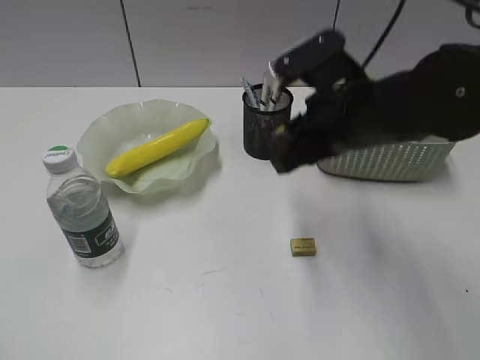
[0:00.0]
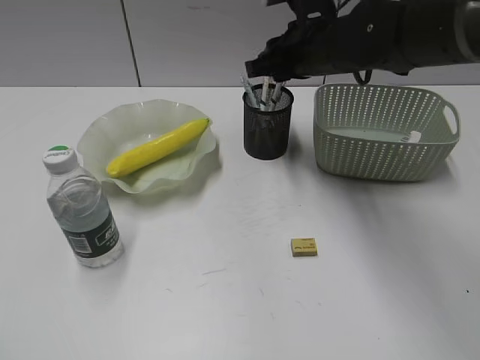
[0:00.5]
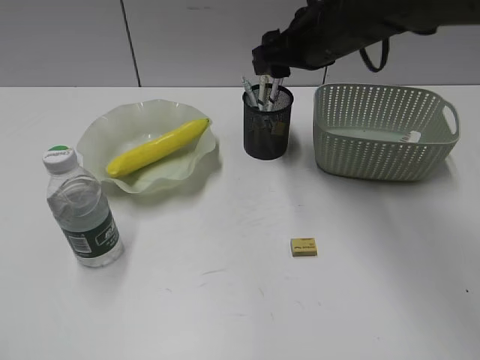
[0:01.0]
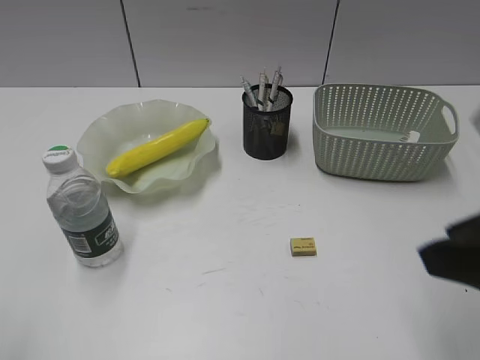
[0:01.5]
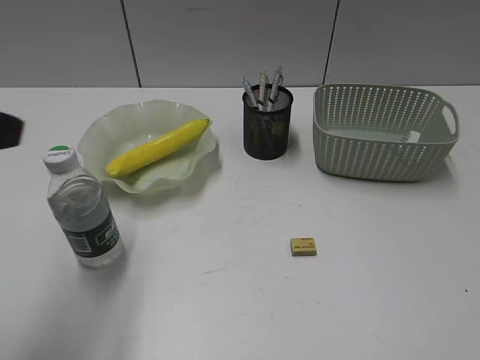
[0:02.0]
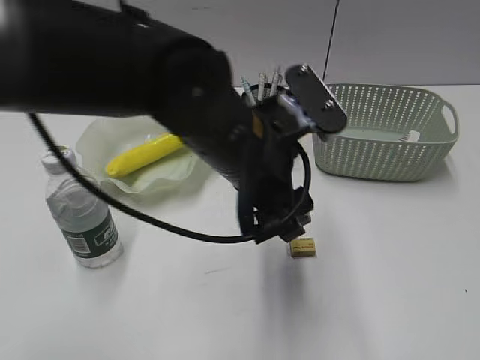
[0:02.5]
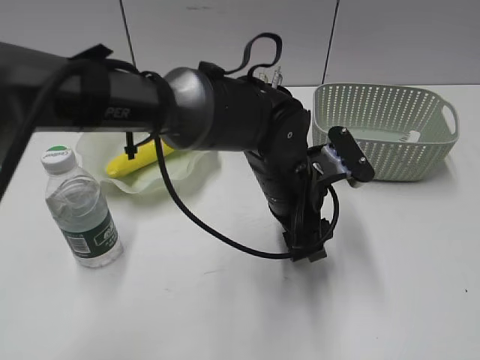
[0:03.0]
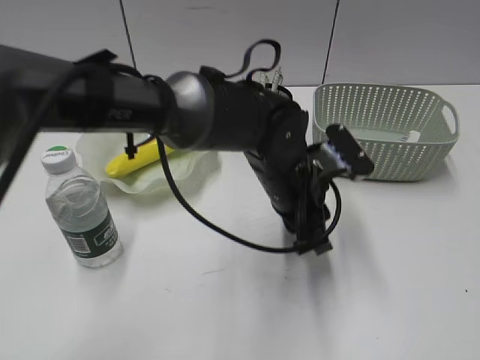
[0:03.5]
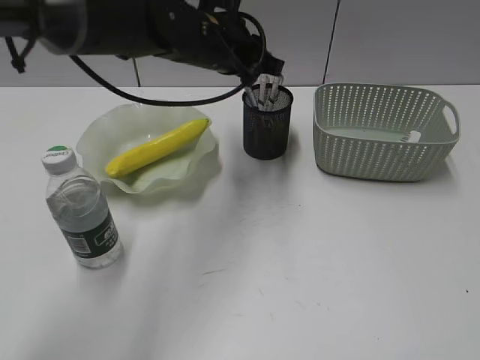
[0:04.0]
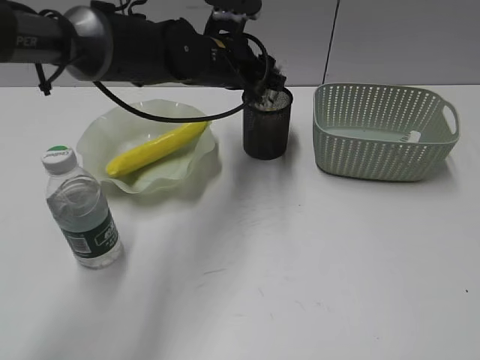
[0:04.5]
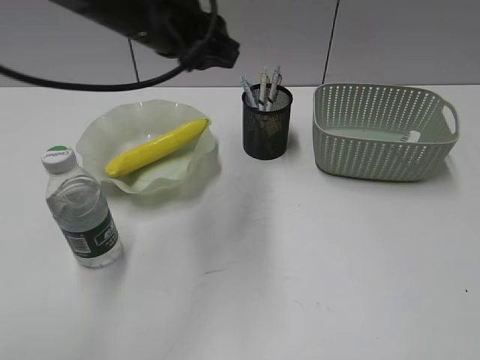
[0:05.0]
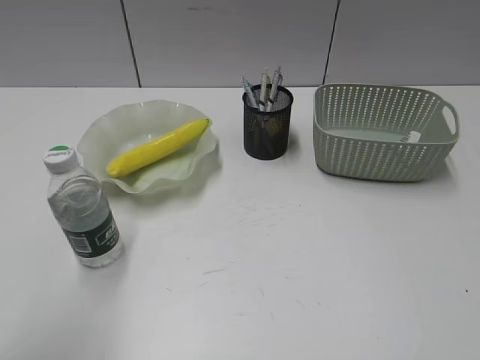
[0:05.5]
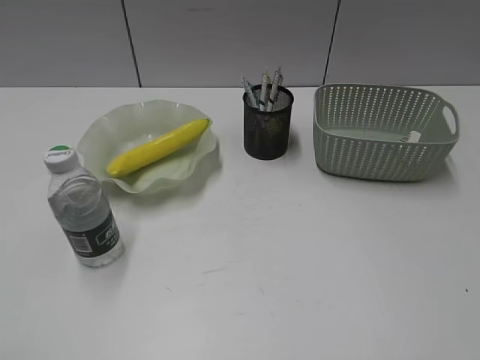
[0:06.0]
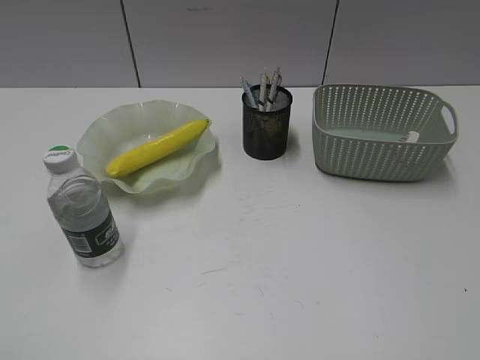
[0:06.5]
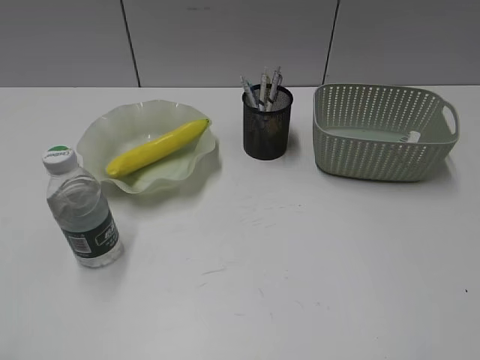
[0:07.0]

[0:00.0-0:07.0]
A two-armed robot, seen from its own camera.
Step, 0:01.0 to 0:03.0: Grasp the eraser with left gripper.
Step, 0:03.5 to 0:04.5: Place the eraser in pen holder with left gripper.
0:00.0 to 0:02.0: The left gripper goes some 20 cm forward and to the right. Meanwhile the right gripper shifts some 35 cm backward and to the right, and opens its fingers.
0:02.0 to 0:03.5: The left gripper goes roughly 35 cm to the right, downward and forward, and closes its fingers.
0:03.5 to 0:05.0: The left gripper moves upward and to the left, some 20 cm.
0:05.0 to 0:07.0: The left gripper heads backward and to the left, covering some 40 cm.

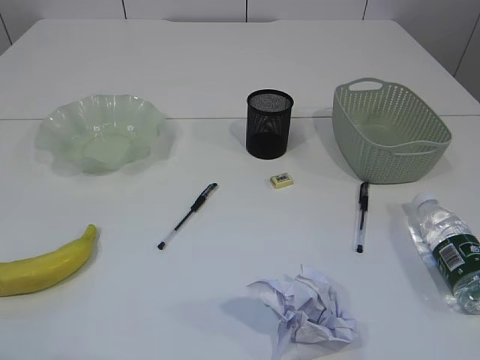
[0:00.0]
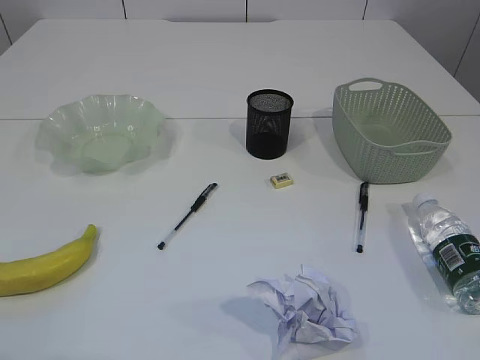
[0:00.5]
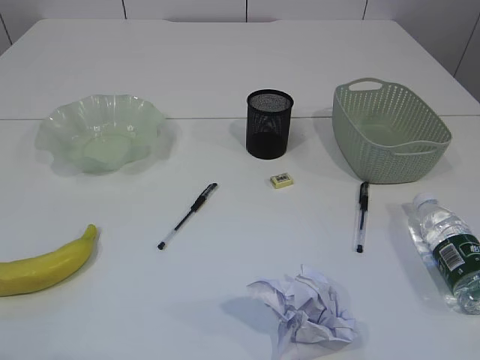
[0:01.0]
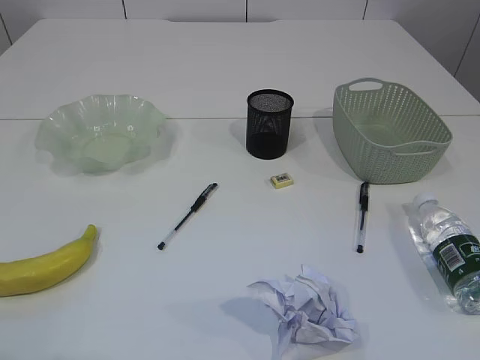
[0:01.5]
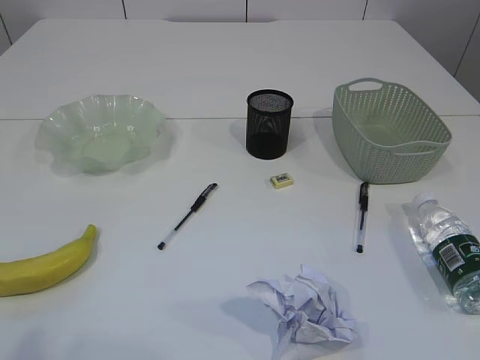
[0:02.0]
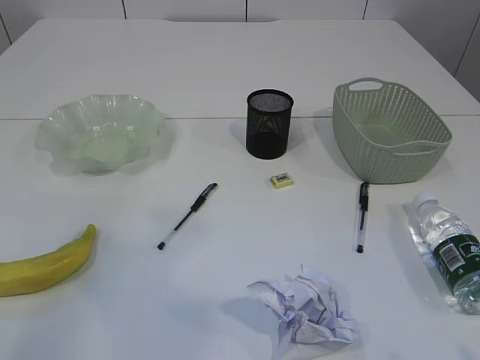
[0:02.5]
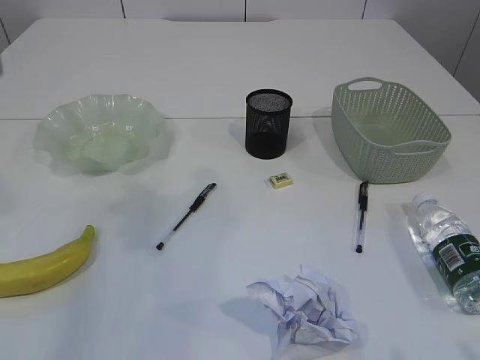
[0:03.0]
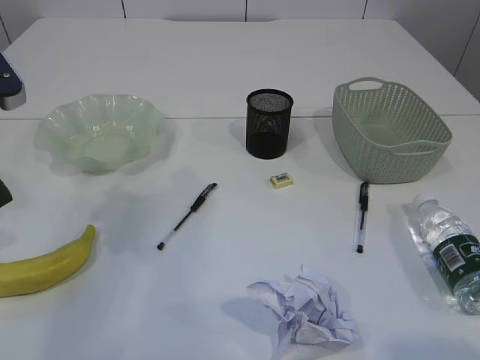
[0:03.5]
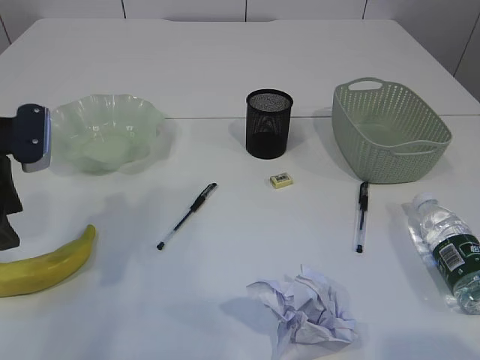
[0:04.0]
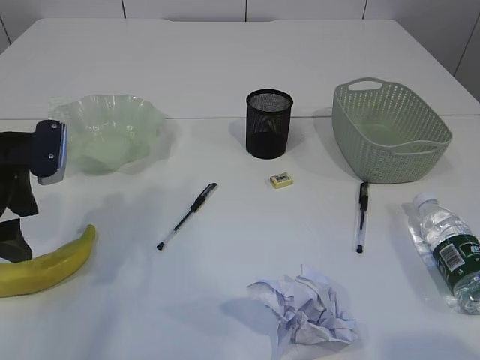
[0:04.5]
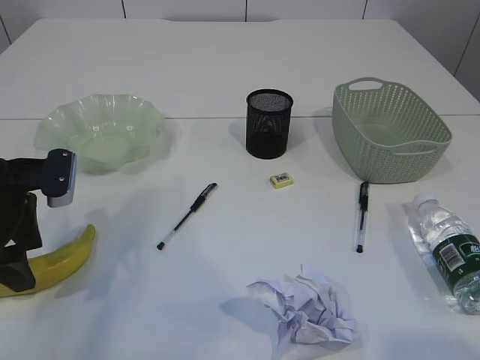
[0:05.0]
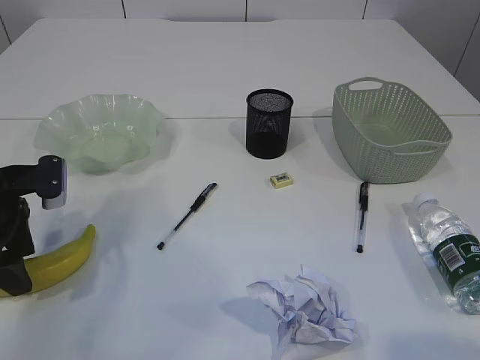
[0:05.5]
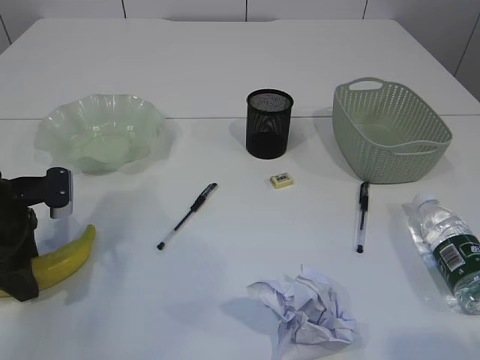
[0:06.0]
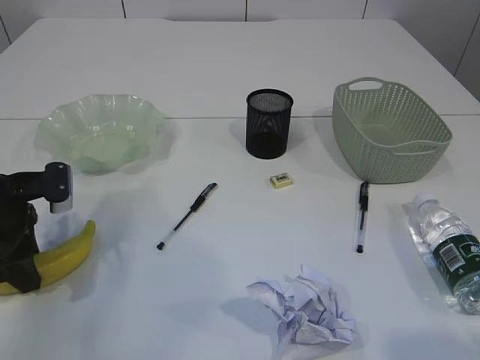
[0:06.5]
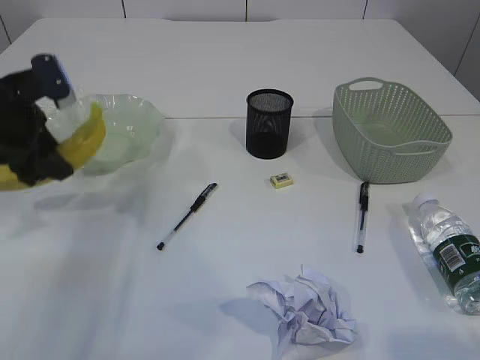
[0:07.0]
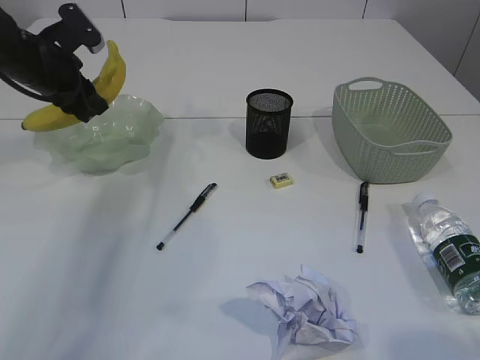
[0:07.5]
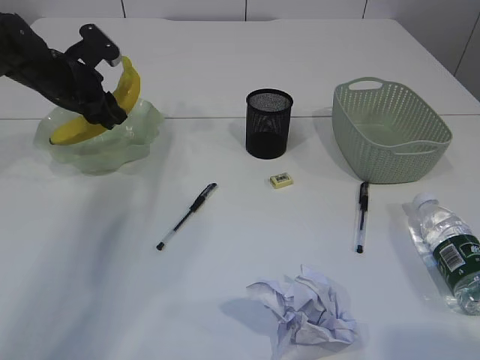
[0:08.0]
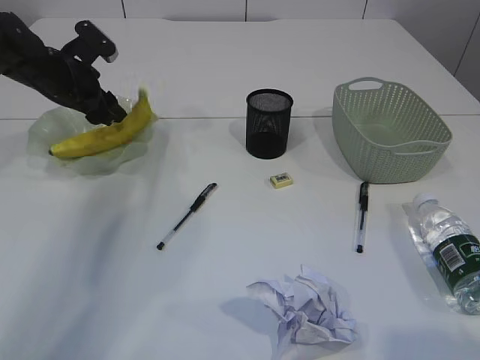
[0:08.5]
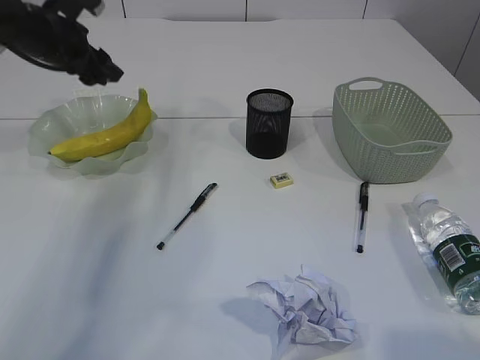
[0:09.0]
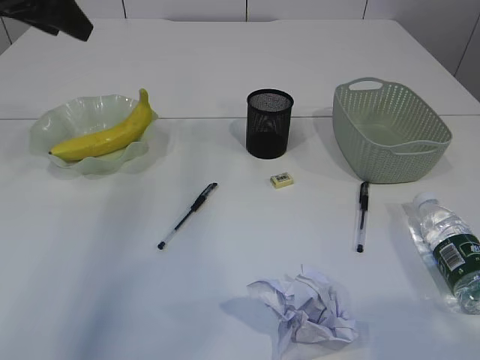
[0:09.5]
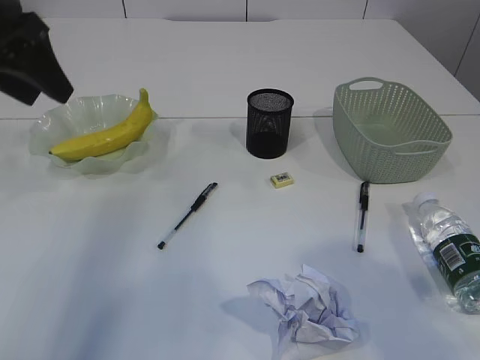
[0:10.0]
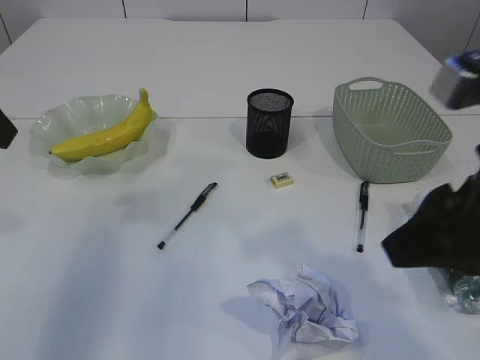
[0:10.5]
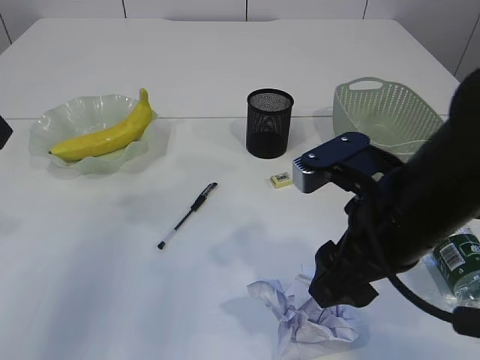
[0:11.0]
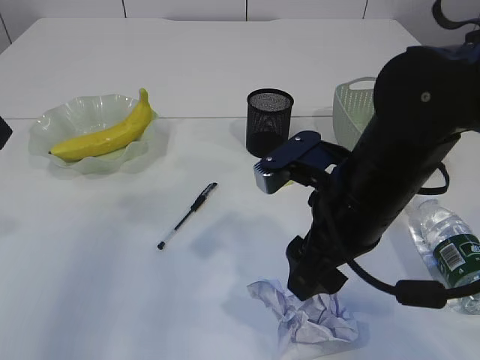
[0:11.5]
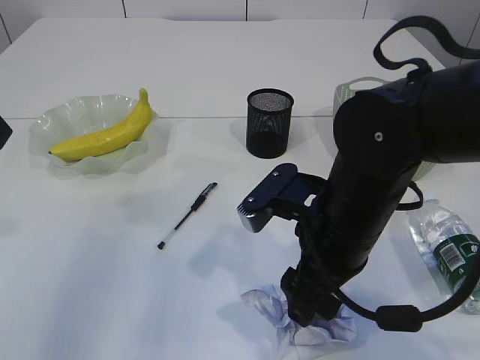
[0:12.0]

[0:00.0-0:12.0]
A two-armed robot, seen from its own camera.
Step, 0:07.0 to 0:09.5: Place the banana in the plate.
0:02.0 to 0:04.0: The left gripper shifts about 30 cm forward.
0:04.0 to 0:06.0: The left gripper goes roughly 10 cm downward.
0:06.0 to 0:08.0: The left gripper heads forward, covering roughly 20 cm.
0:08.0 to 0:10.0: The left gripper moves upward and backward, about 20 cm; the right gripper shifts about 10 cm forward and upward.
0:10.0 to 0:12.0: The right gripper goes approximately 25 cm downward, to the left and forward; the left gripper shifts approximately 10 cm backward.

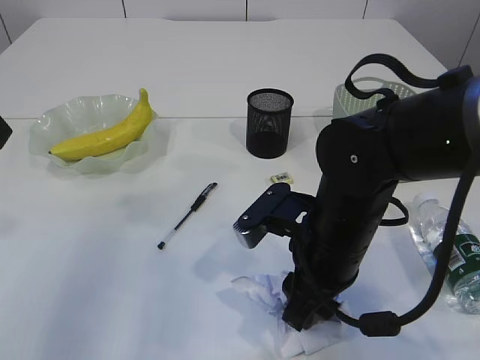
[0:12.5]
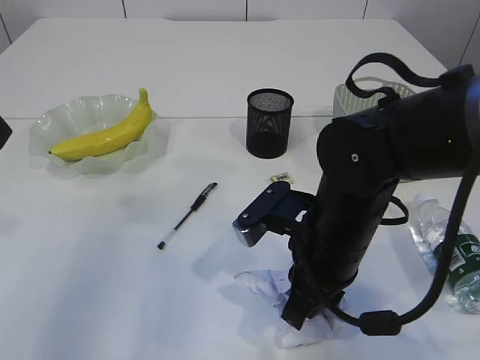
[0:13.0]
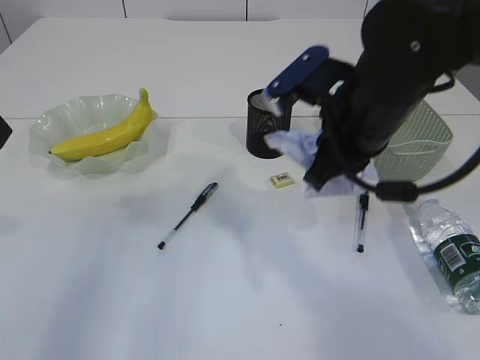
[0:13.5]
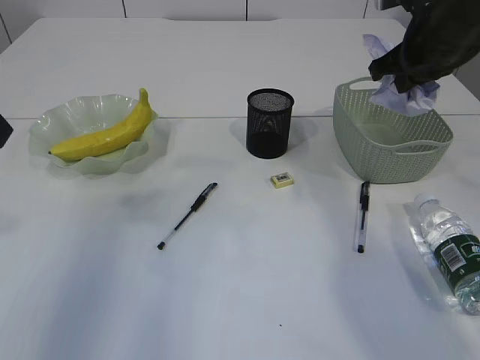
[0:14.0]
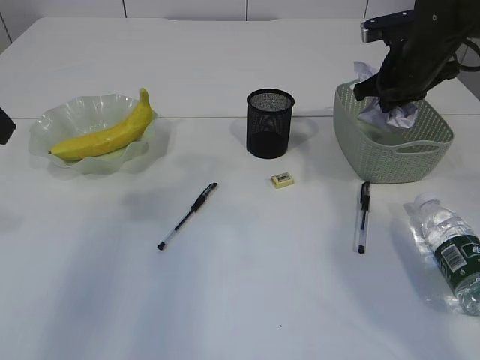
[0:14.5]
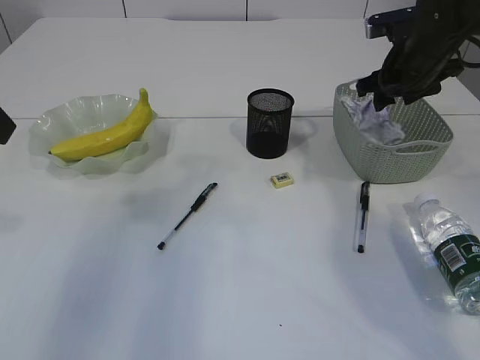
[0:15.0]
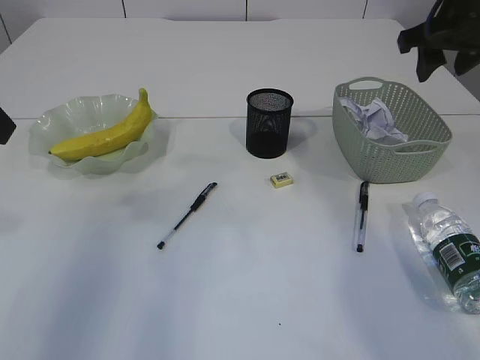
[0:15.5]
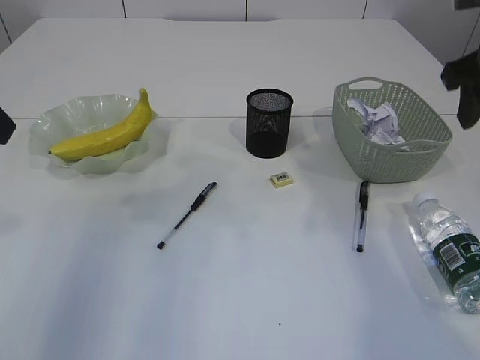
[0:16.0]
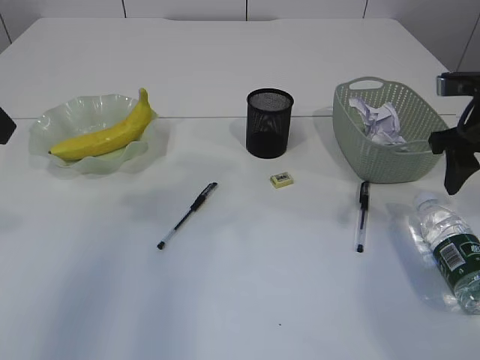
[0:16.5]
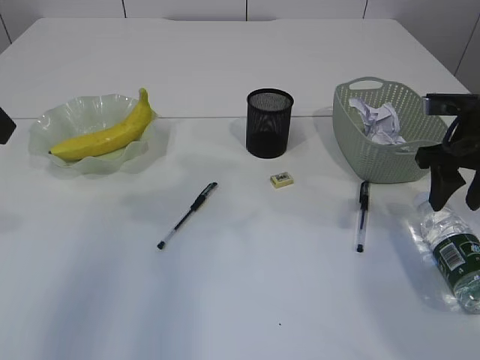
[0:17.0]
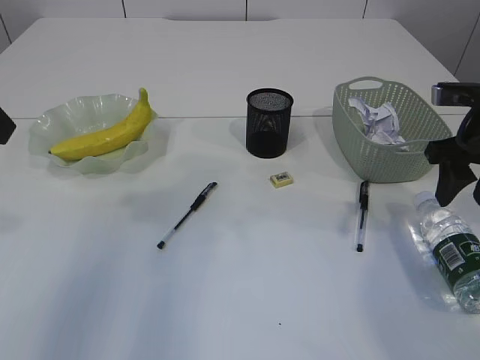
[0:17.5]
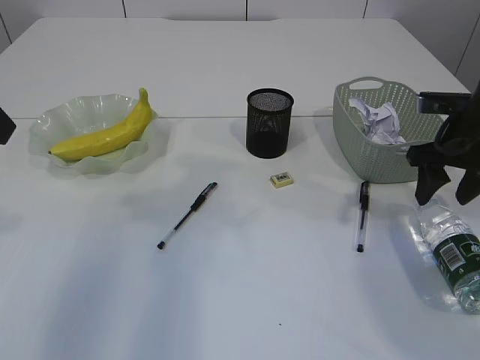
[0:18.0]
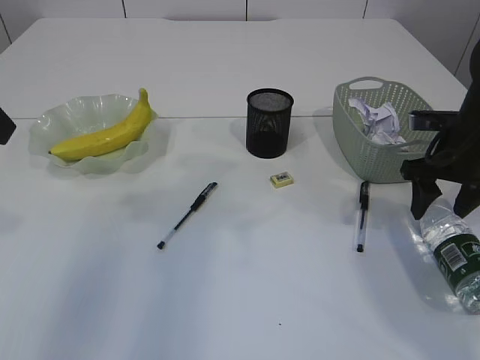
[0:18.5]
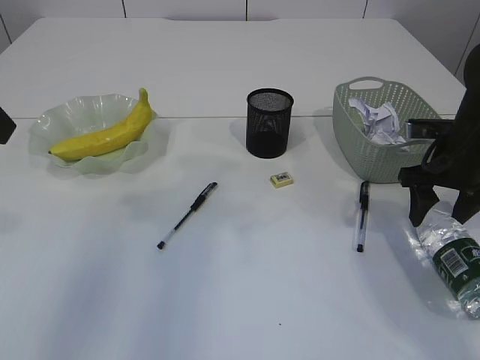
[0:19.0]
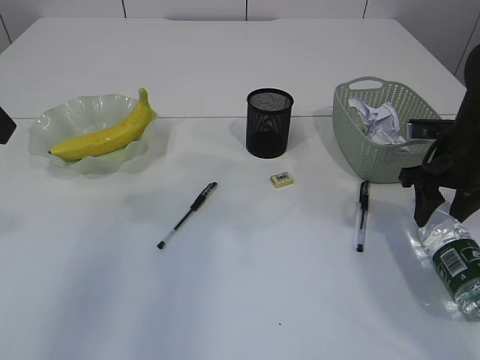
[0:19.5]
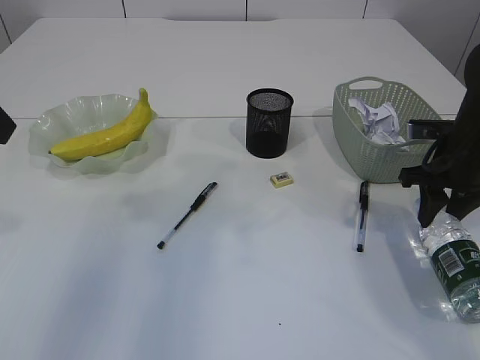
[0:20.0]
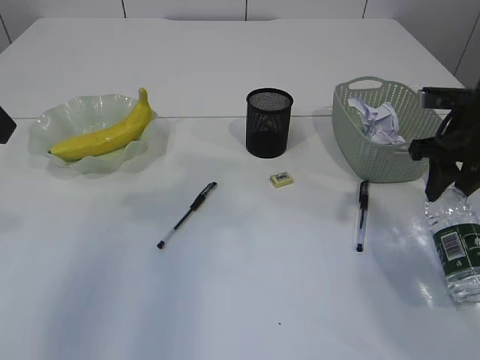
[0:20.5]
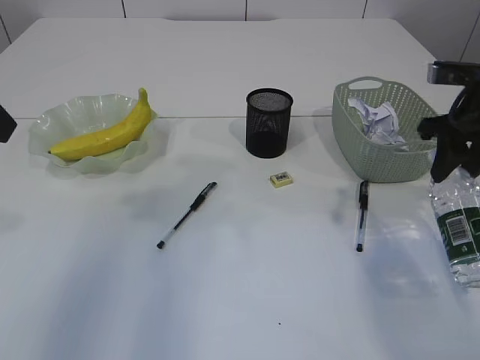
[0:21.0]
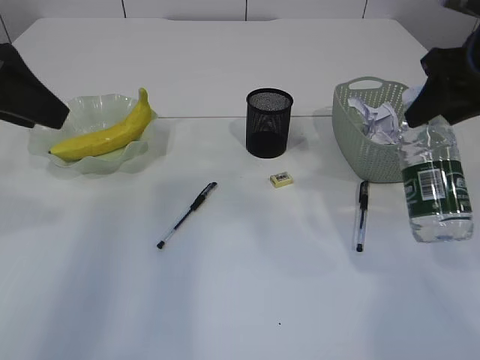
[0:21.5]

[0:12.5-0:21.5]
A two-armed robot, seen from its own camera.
Step, 0:13.5 to 0:15.0: Place the waste paper in the basket.
Step, 0:15.5 to 0:20.5: Pick up the bottle with the right arm.
0:12.5 to 0:14.5: The right gripper is displaced forward and to the right by roughly 25 cm, and closes up.
0:14.5 to 0:17.0: The right gripper shifts about 10 cm backward, and opens up.
0:17.0 to 0:19.5: The right gripper ends up roughly 5 cm from where it was.
0:19.5 to 0:21.5: The right gripper heads upward, covering some 15 cm.
